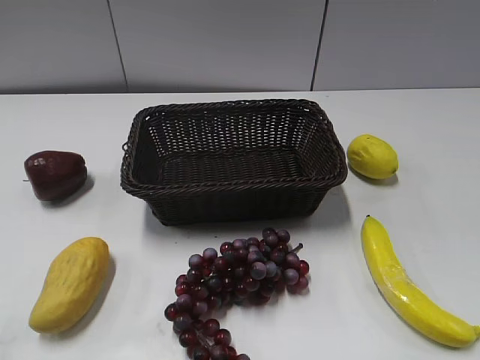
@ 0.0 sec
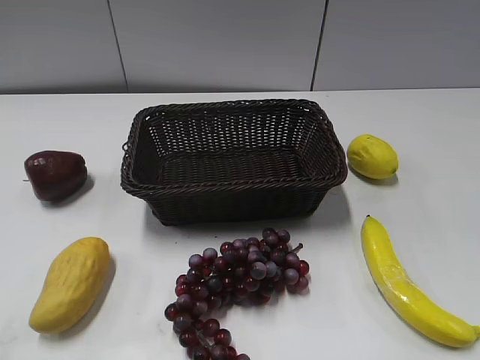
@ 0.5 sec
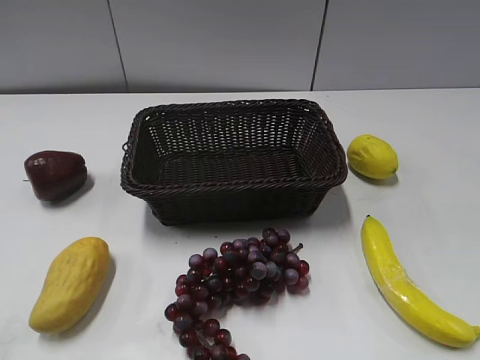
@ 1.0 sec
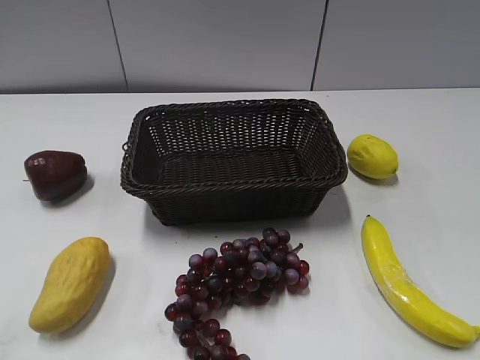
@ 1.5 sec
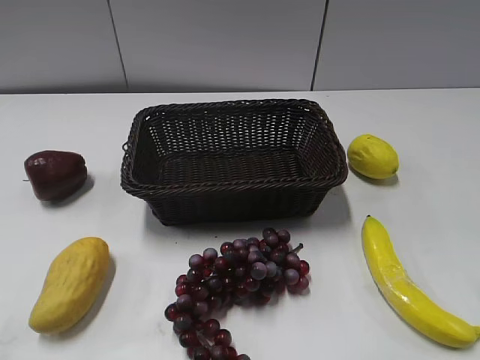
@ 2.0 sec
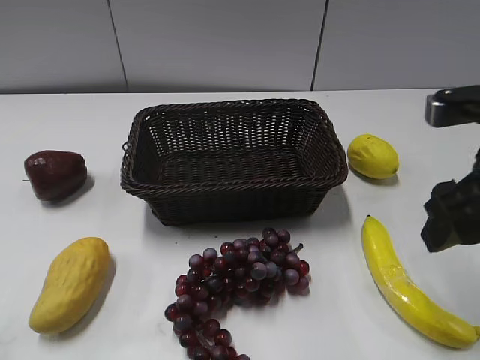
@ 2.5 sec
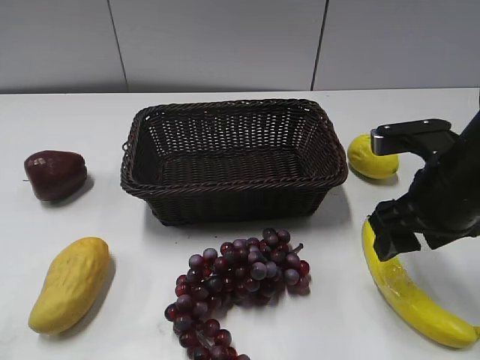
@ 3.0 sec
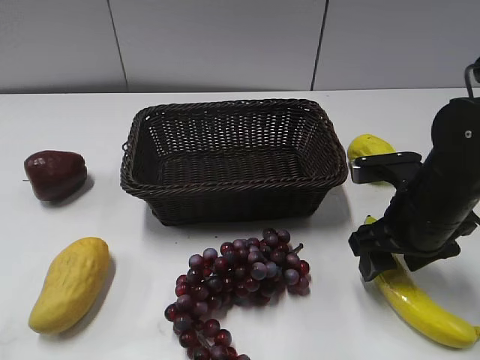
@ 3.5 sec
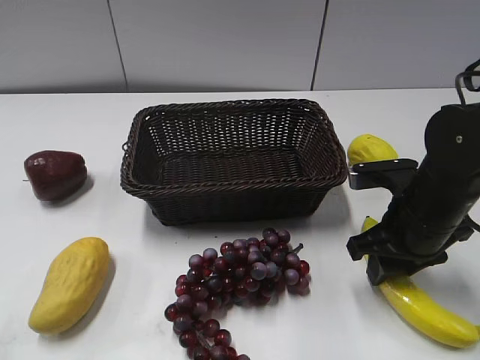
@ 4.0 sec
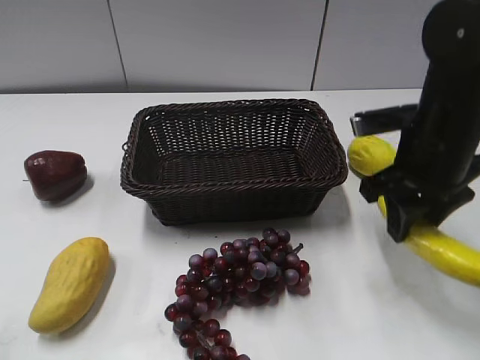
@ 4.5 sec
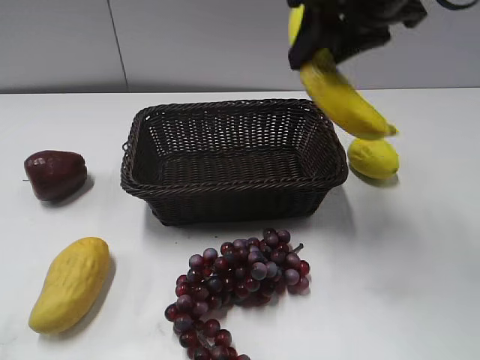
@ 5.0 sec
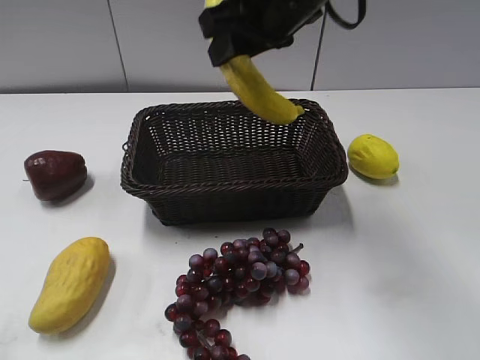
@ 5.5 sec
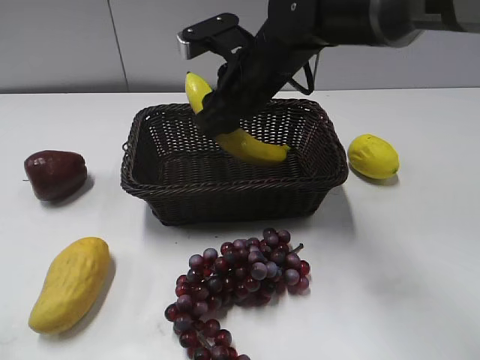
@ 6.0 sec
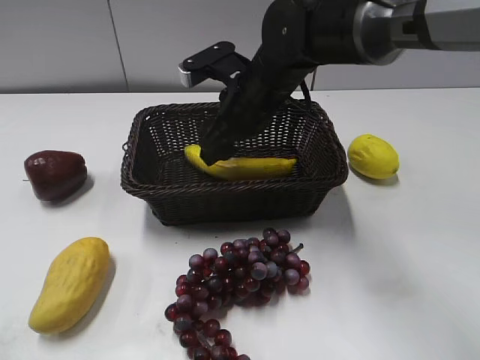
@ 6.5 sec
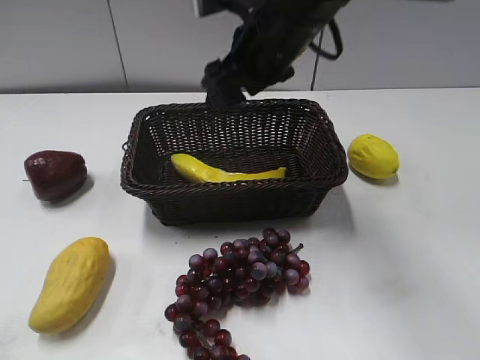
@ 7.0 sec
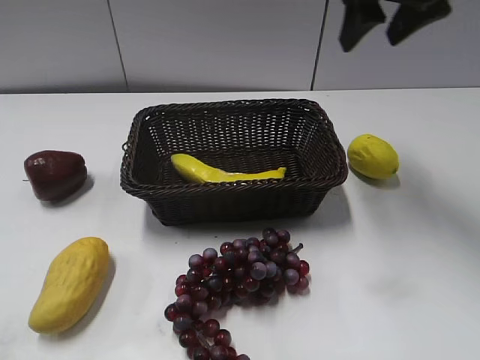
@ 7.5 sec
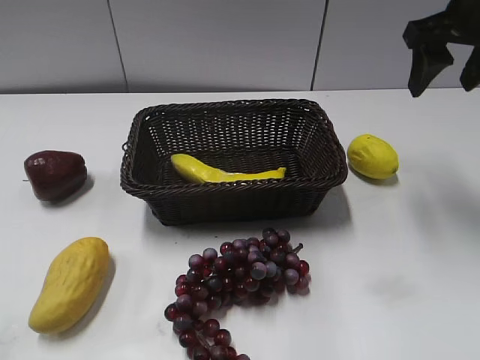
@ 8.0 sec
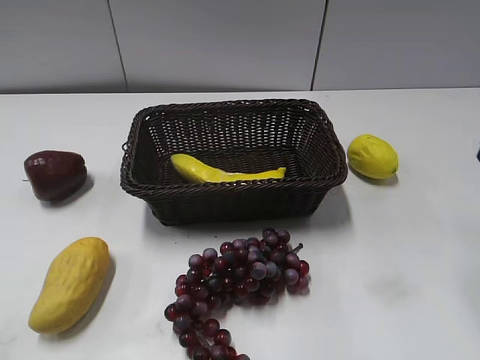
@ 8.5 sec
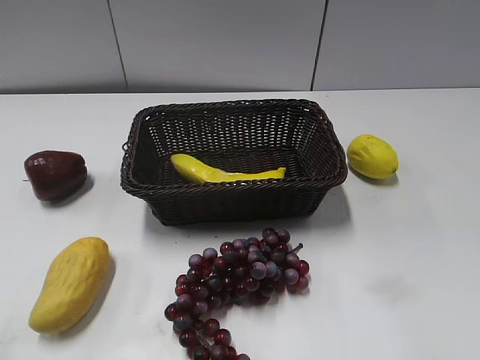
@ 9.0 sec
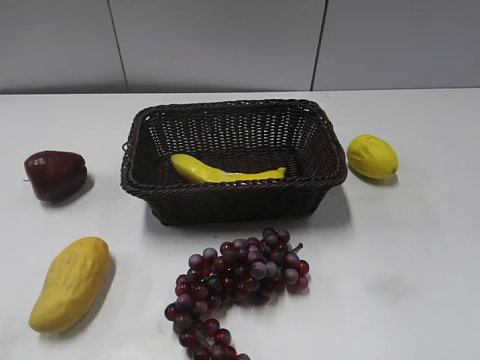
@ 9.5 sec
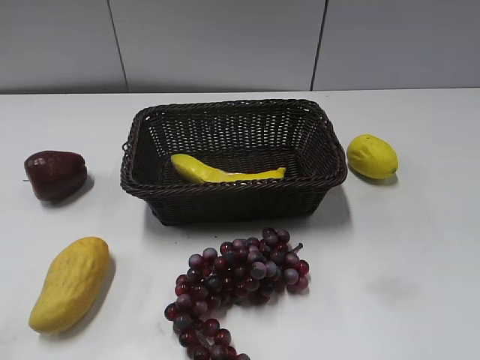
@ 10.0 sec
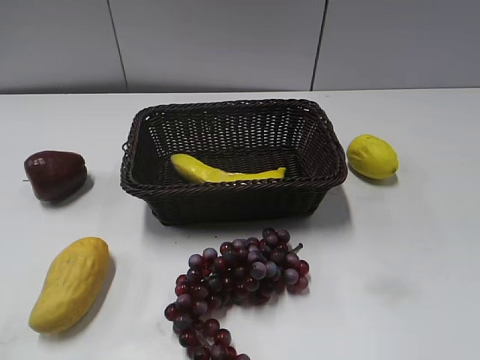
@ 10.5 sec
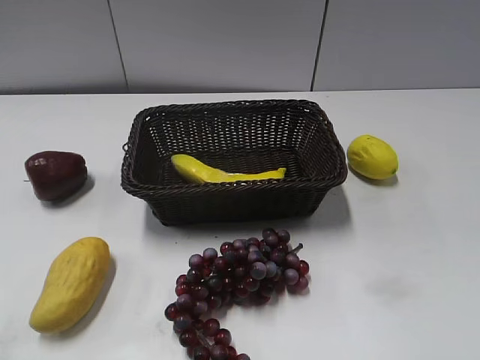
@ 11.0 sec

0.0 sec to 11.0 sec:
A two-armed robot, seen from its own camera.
Step, 2.5 sec to 3.5 sec: Grasp the banana with right gripper.
Step, 4.5 sec to 6.5 sec: Place the banana in the basket with right gripper.
2.0 sec to 3.5 sec: The right gripper heads downward, forward and to the left, covering about 20 cm.
3.5 sec to 5.5 sec: The right gripper goes roughly 25 cm upward, to the left and forward, and closes its fingers.
5.5 sec to 7.5 sec: The right gripper shifts some 15 cm to the right, moves approximately 10 cm downward and comes back, and opens.
7.5 sec to 9.0 sec: The right gripper shifts some 30 cm backward.

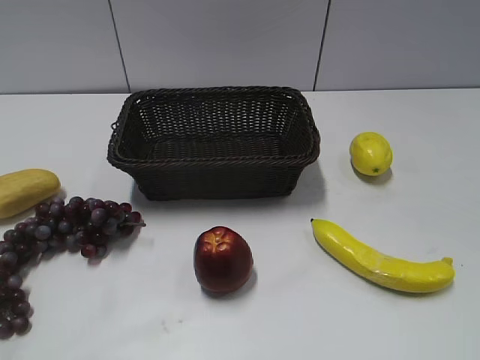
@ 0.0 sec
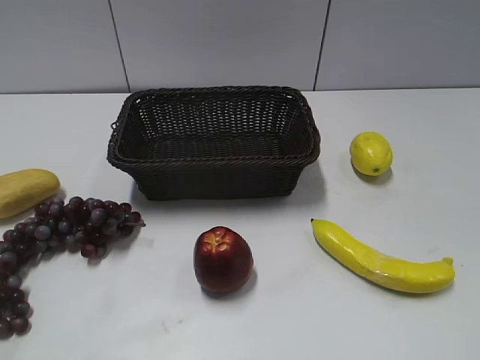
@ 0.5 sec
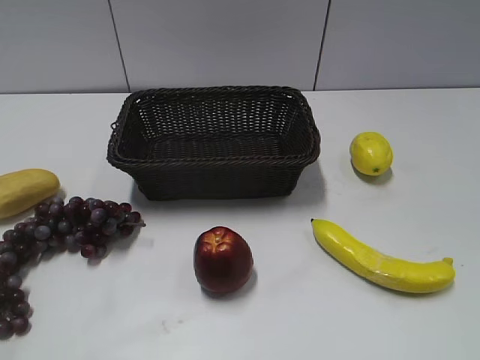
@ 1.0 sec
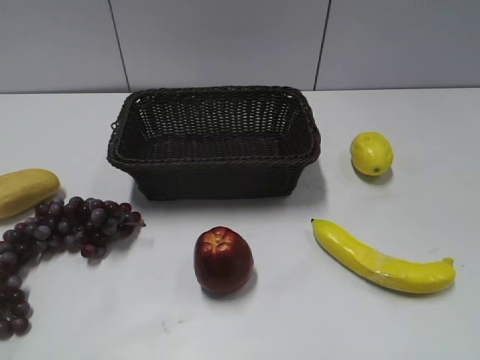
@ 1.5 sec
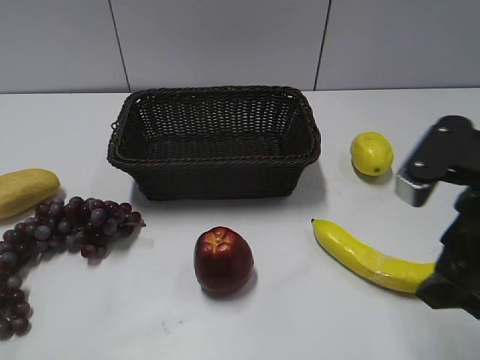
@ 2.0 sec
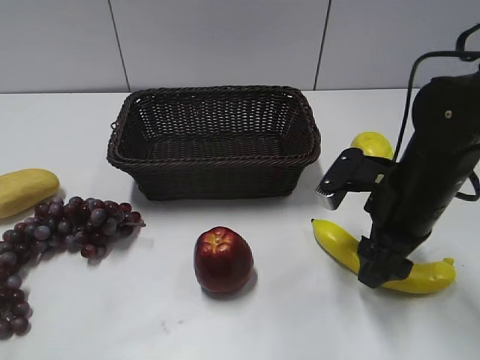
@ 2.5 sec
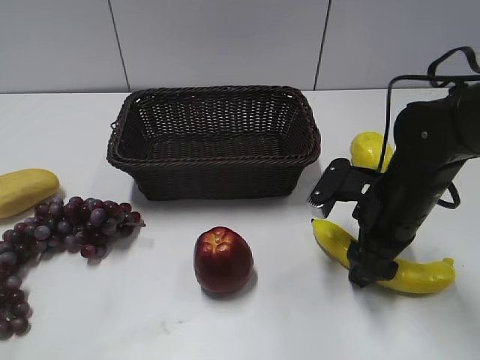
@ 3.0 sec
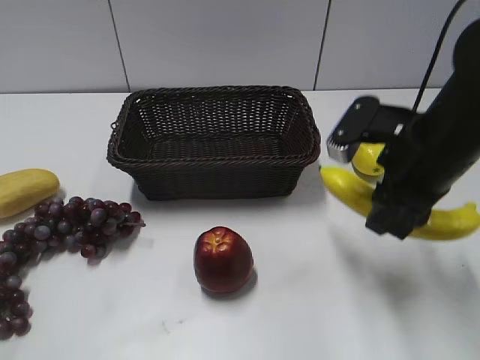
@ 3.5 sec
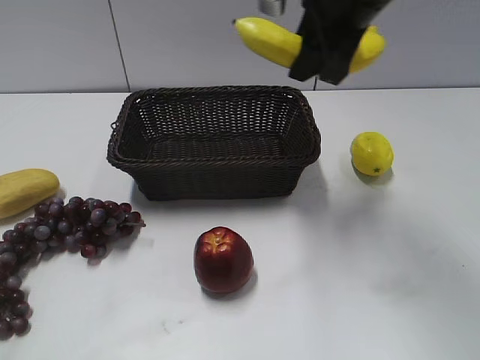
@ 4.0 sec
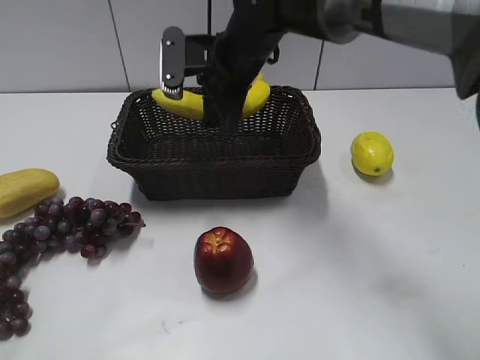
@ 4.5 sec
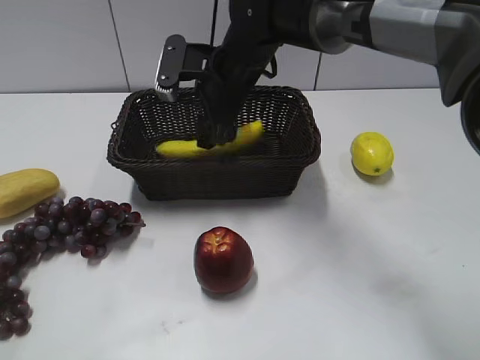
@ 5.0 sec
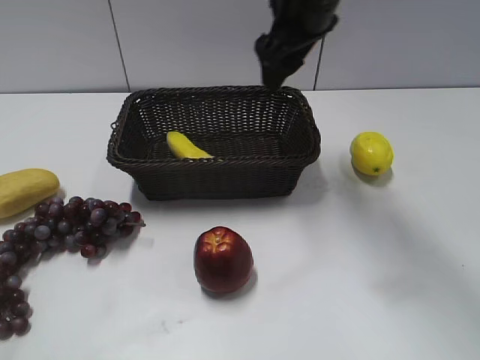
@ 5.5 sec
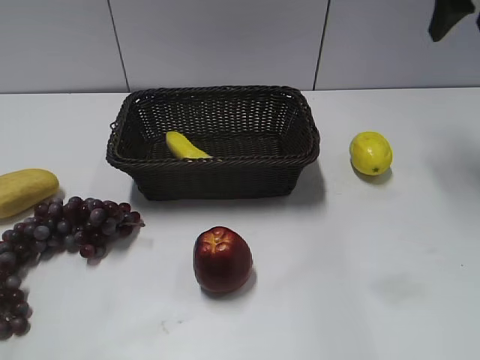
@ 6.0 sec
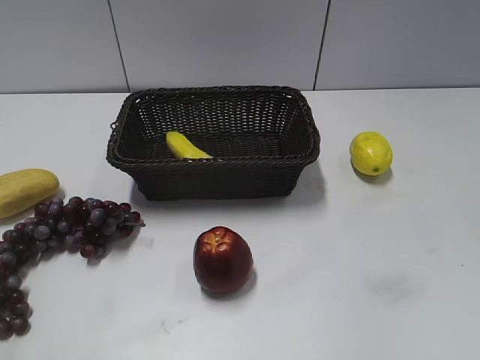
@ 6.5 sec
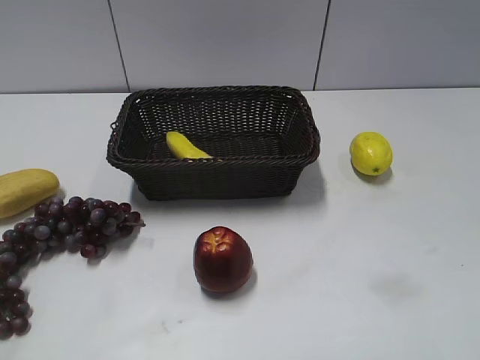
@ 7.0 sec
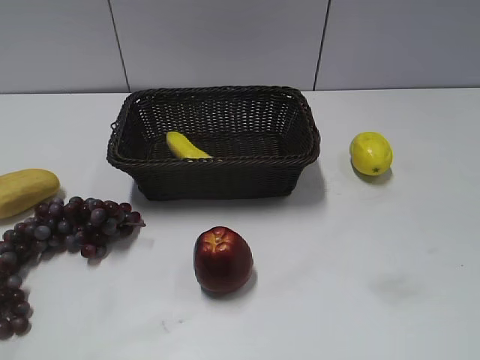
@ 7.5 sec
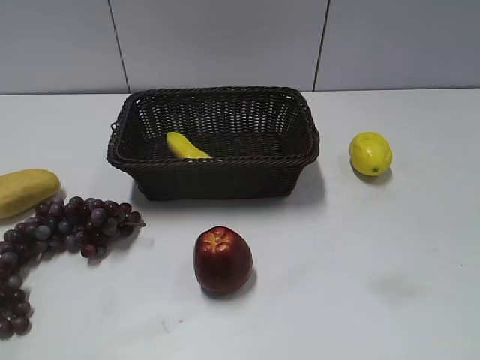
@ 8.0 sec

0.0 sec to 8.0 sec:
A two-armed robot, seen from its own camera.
Step, 2.0 sec to 3.0 sec: Grasp the banana with right gripper.
Step, 3.5 sec to 5.0 sec: Place the banana in the basket with right gripper.
2.0 sec to 4.0 sec: The right gripper heads forward, to the left and upward, covering about 25 cm, and closes its fingers.
4.0 sec to 6.0 sec: The right gripper travels to the right by approximately 20 cm, and opens.
6.0 sec to 8.0 sec: The right gripper travels backward by about 40 cm.
